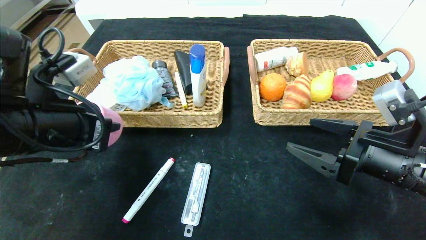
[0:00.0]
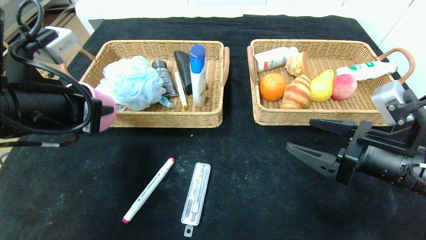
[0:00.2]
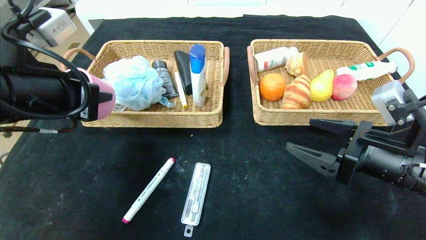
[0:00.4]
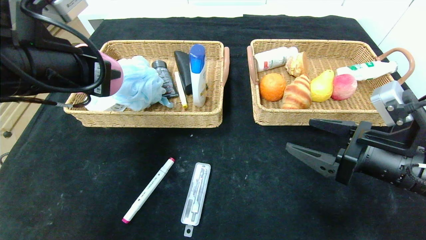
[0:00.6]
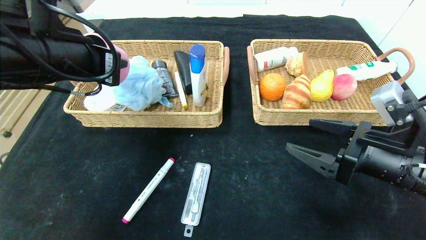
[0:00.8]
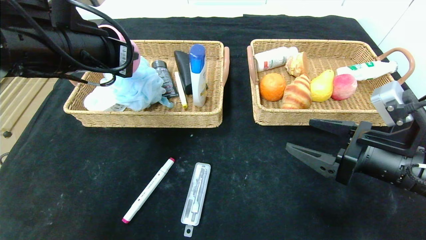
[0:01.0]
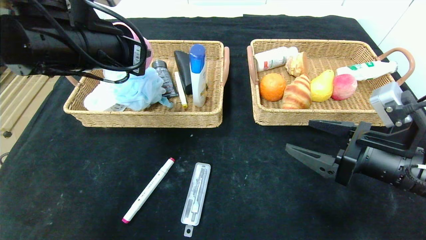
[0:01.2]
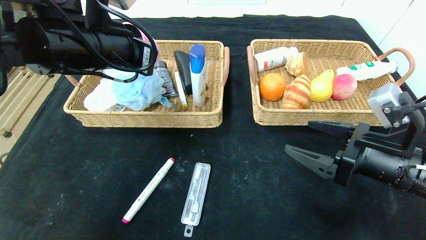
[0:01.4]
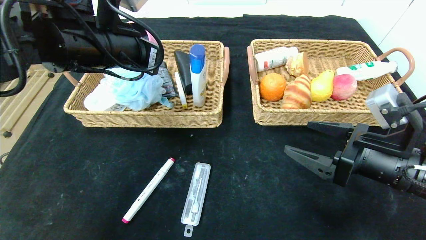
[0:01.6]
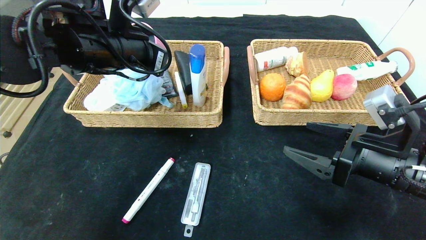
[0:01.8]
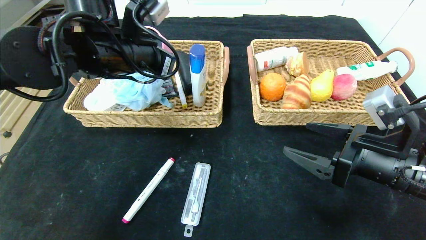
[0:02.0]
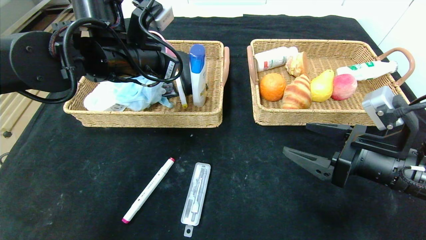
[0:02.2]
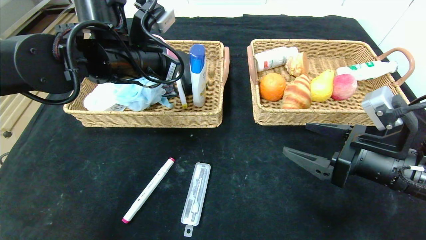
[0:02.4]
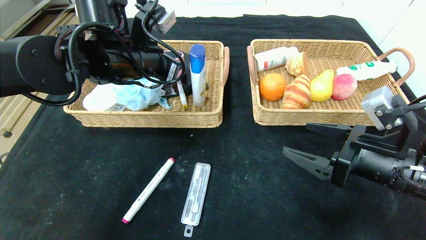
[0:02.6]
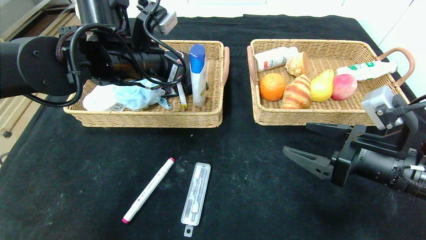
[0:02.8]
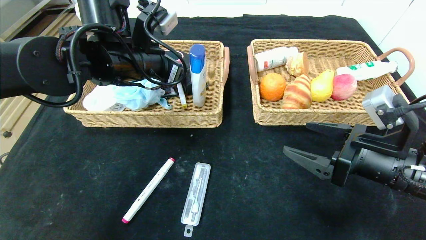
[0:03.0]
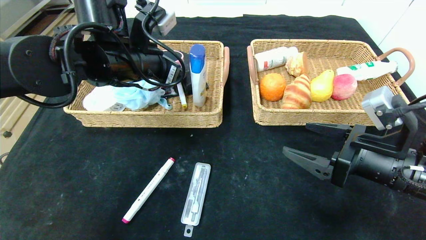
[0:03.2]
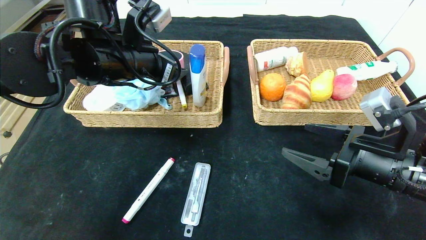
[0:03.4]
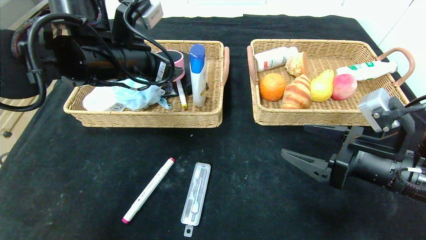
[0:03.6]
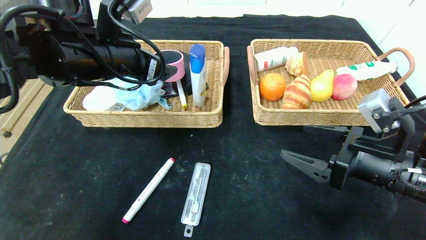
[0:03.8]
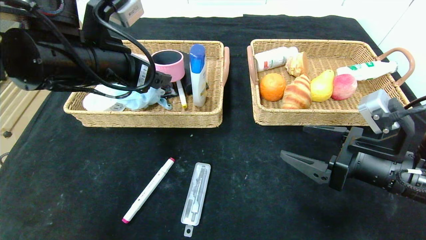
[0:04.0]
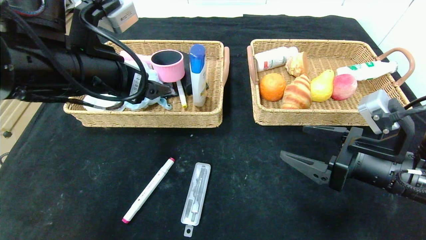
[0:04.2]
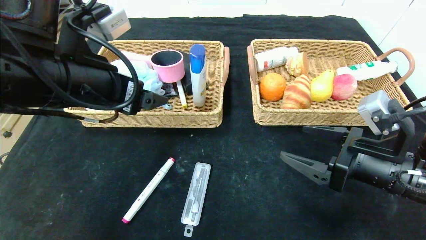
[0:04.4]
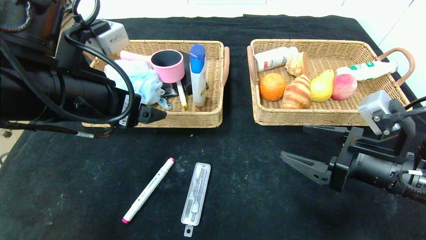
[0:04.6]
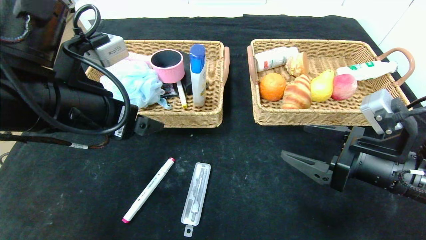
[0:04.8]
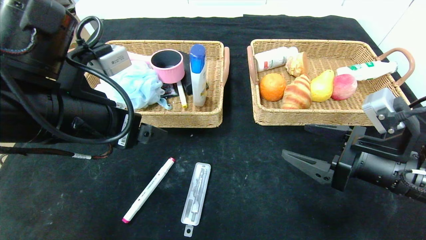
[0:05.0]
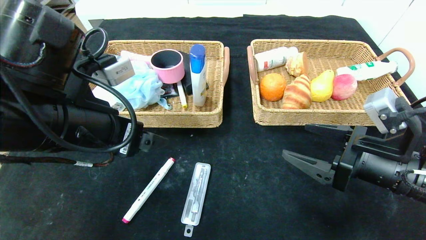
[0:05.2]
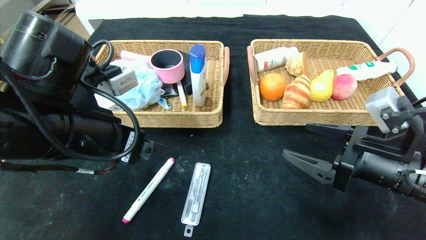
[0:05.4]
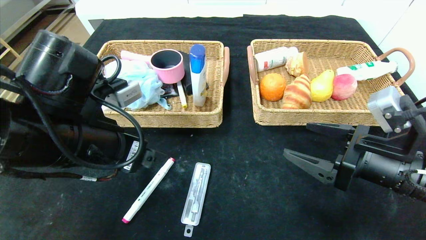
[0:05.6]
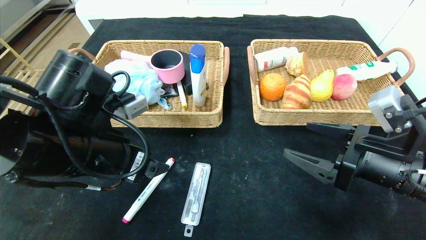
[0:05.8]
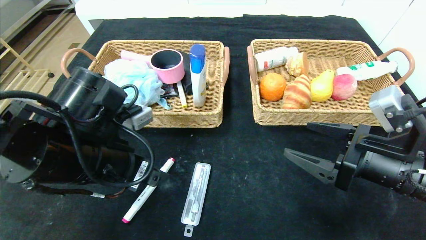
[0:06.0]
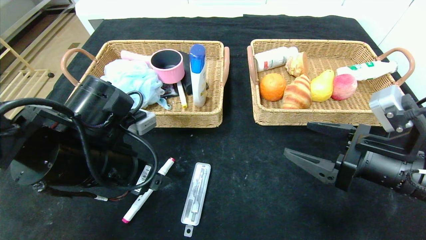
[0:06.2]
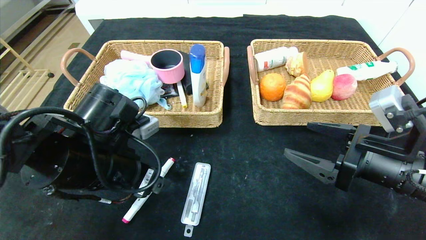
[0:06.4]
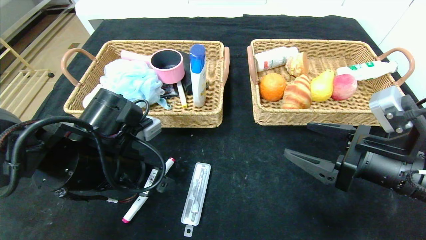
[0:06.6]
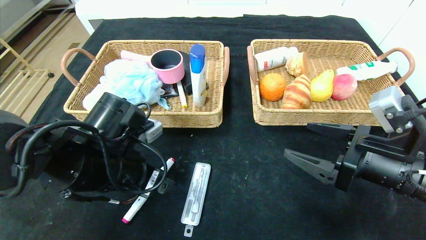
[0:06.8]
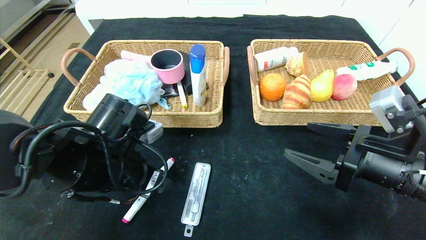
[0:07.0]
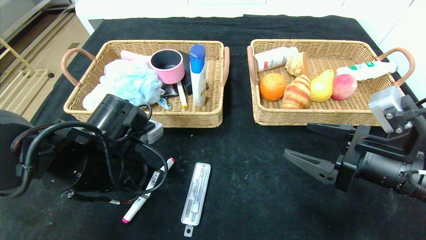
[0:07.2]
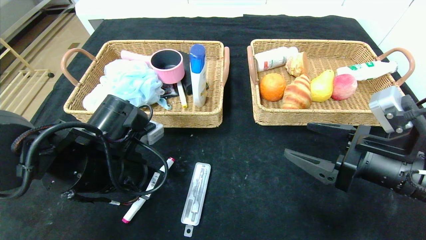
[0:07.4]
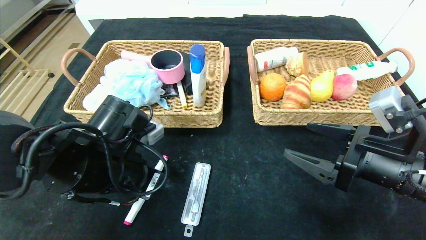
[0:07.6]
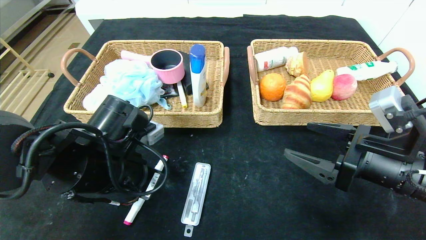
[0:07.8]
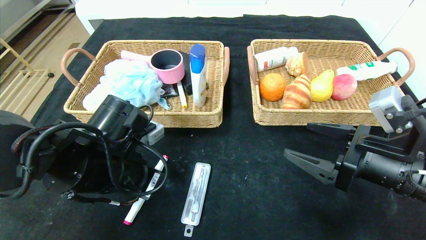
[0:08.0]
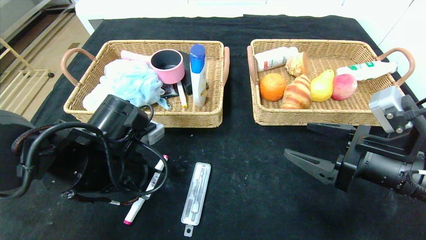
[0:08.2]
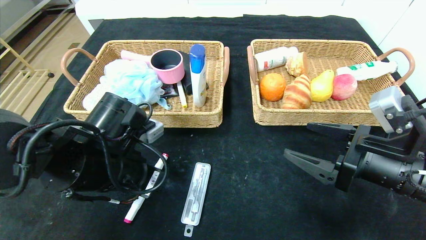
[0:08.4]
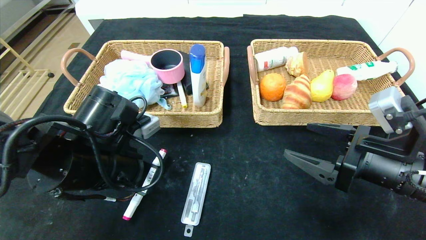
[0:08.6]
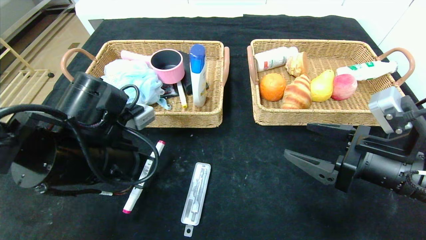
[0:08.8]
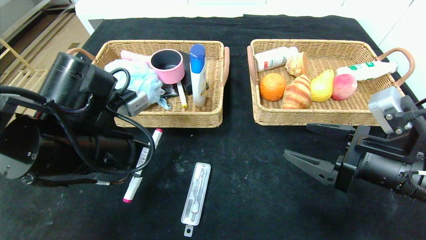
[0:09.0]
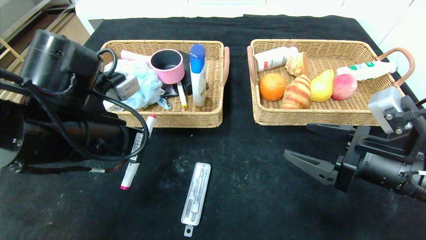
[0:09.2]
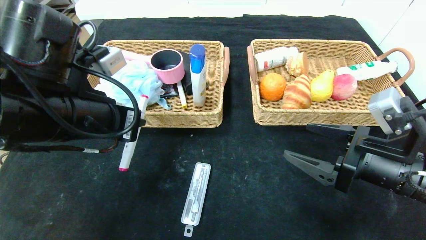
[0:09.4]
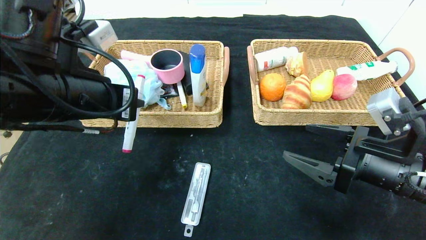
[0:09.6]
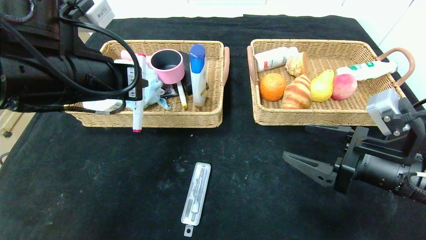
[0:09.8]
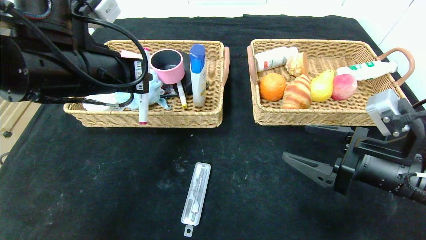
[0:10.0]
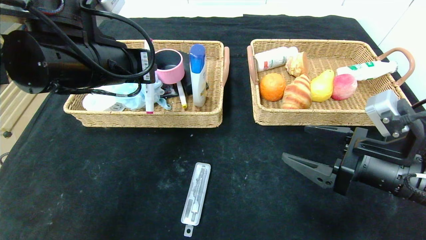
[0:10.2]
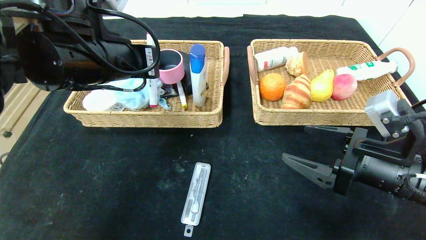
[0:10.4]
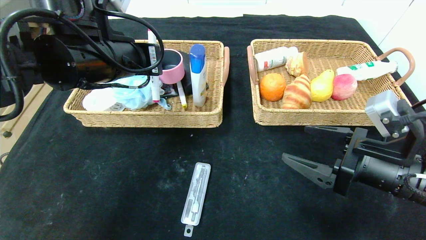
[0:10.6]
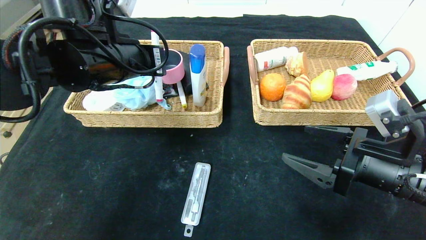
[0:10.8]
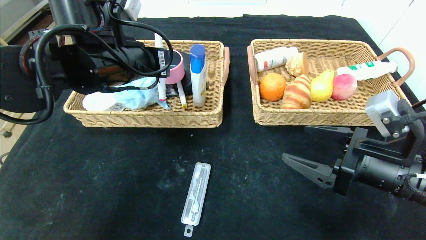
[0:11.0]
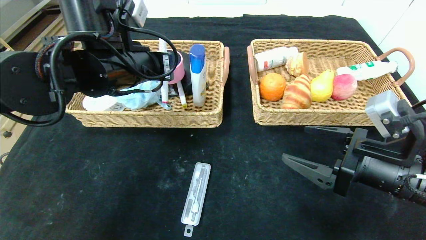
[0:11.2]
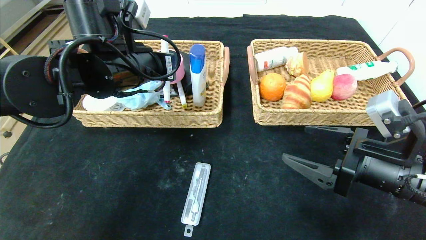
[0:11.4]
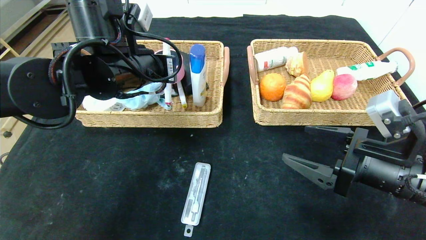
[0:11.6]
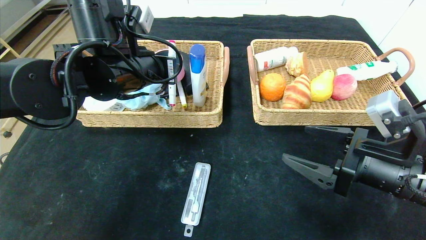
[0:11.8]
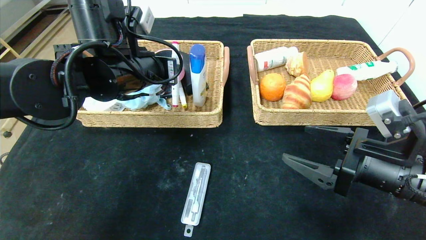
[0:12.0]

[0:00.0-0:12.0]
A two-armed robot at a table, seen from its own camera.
Step, 0:00.0 to 0:04.8: Pick up the pink pot and put it in the left basket.
0:00.0 to 0:01.6: The left gripper goes about 15 cm forward, upward and to the right.
0:01.6 to 0:03.0: The left gripper opens its fingers.
0:03.0 to 0:04.4: The left gripper heads backward, covering roughly 10 cm.
0:04.4 to 0:06.0: The left gripper heads downward, covering approximately 10 cm.
0:06.0 to 0:07.6: The left gripper closes its fingers.
0:07.6 to 0:09.0: The left gripper is displaced upward by about 5 cm.
0:09.0 to 0:10.4: The left gripper travels upward and forward by some 10 cm.
0:10.4 to 0:12.0: The left gripper shifts by roughly 5 cm, and opens up.

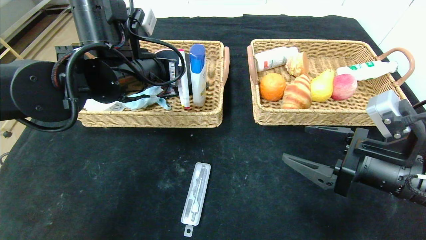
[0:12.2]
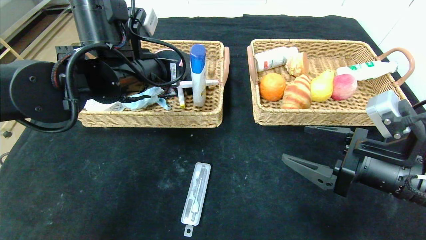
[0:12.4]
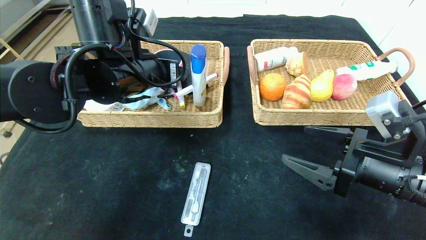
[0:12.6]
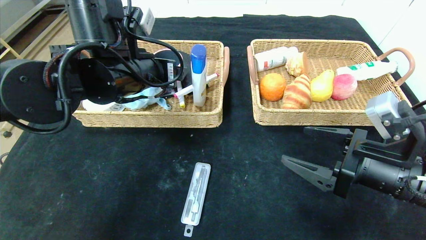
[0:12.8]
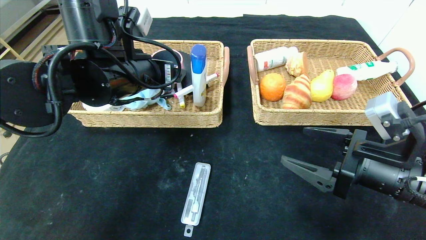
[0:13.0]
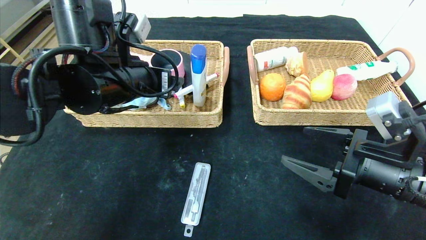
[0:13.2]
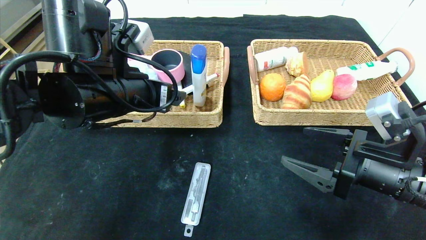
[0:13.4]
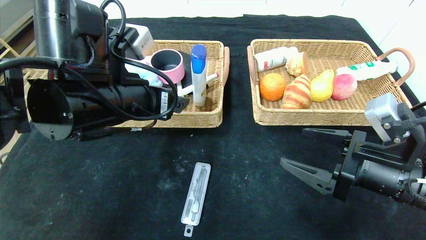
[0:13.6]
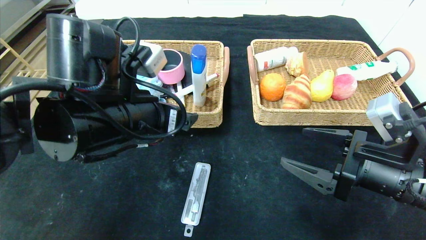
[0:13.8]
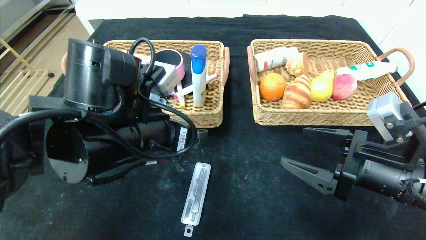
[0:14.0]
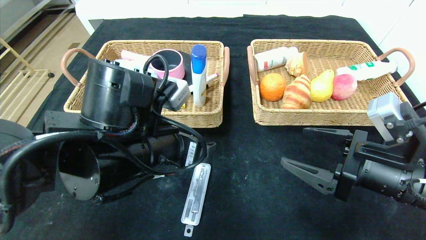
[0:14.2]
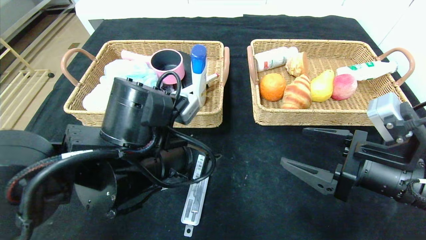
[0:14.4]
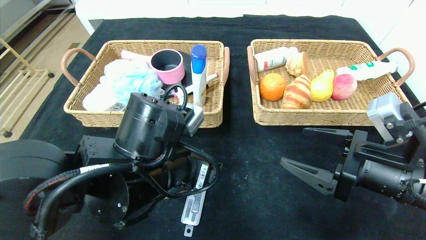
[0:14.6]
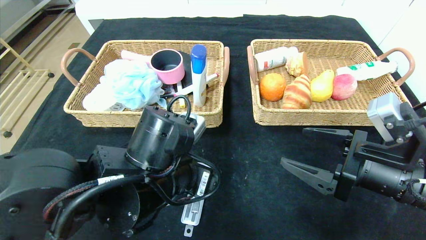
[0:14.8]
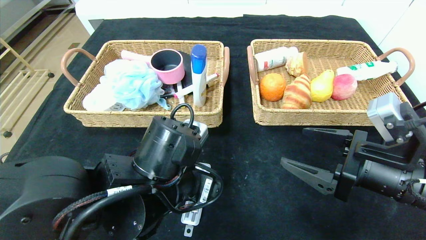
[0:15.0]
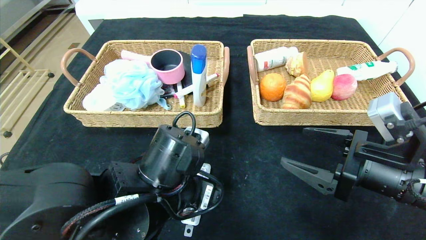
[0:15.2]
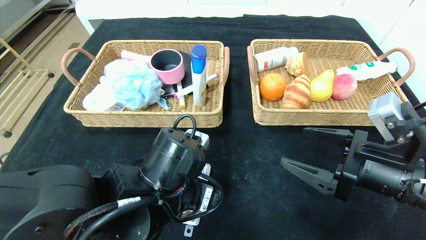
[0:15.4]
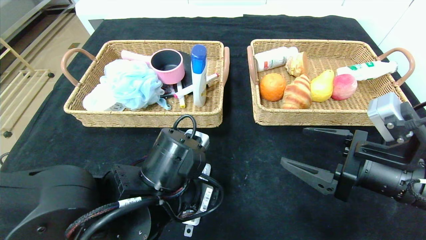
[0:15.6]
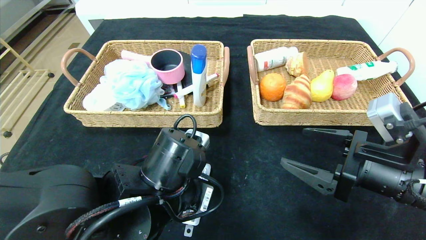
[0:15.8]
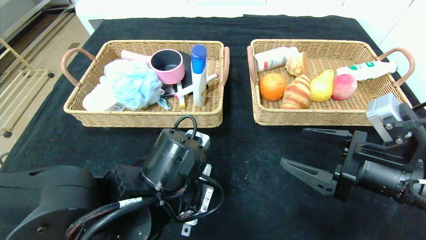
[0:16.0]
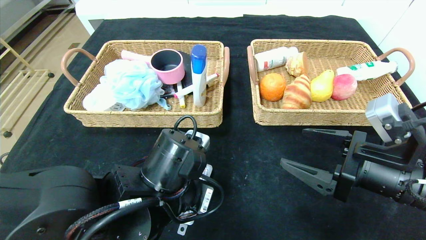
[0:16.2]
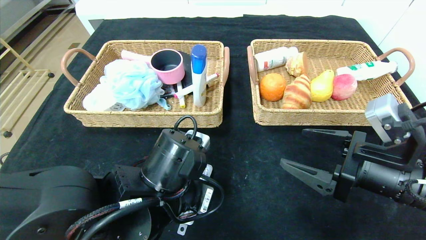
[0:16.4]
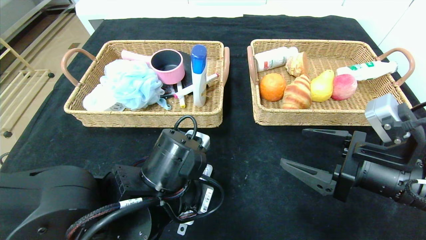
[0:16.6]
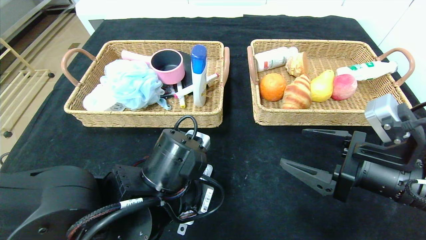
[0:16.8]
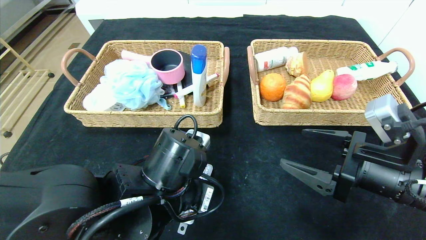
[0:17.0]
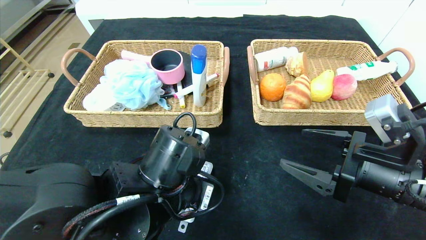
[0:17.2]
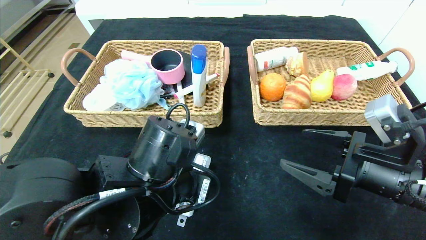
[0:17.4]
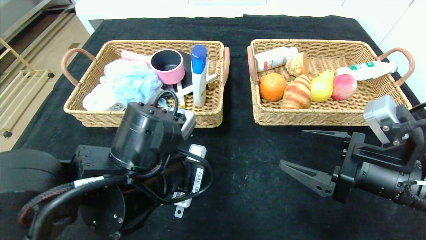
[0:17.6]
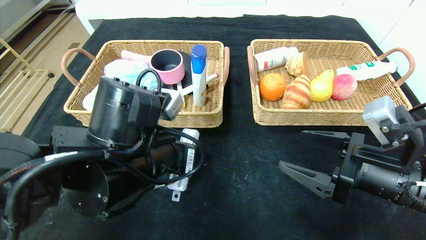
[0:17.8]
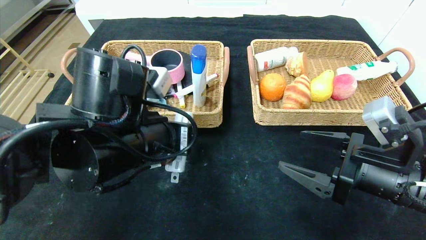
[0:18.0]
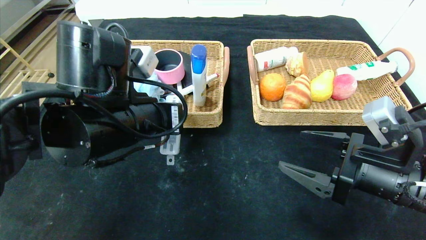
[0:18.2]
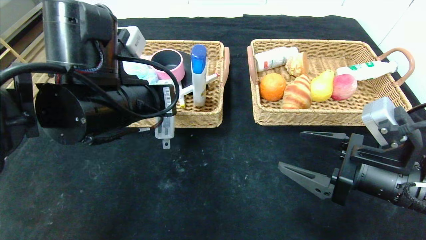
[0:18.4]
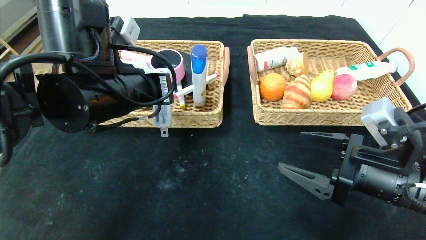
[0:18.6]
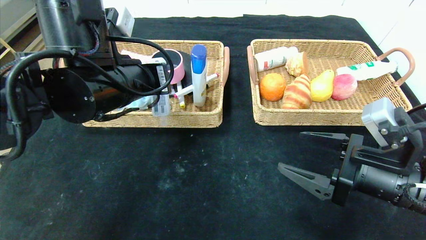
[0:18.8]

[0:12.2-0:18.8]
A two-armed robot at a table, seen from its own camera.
Step, 0:12.2 to 0:14.2: Pick up the pink marker and put it in the left basket.
0:12.2 to 0:13.8: The left gripper is displaced backward by roughly 10 cm.
0:13.8 to 0:15.4: The left gripper is displaced downward by approximately 10 cm.
0:15.4 to 0:17.2: The left gripper closes up.
0:17.2 to 0:18.8: The left gripper heads upward, forward and to the left, covering some 15 cm.
